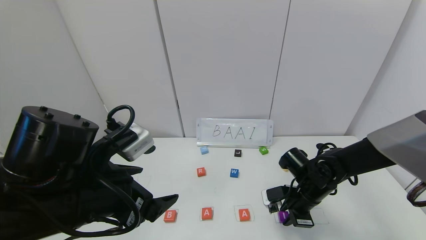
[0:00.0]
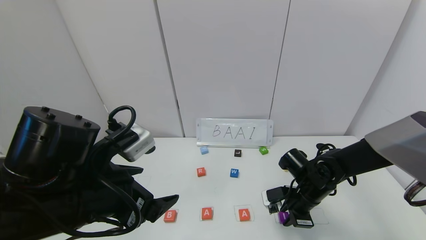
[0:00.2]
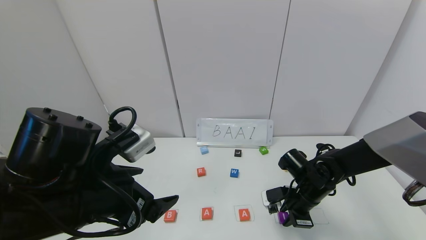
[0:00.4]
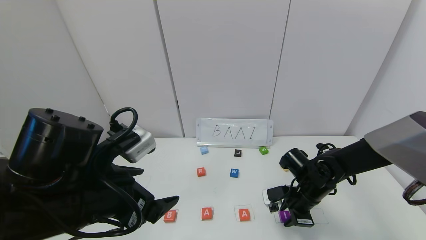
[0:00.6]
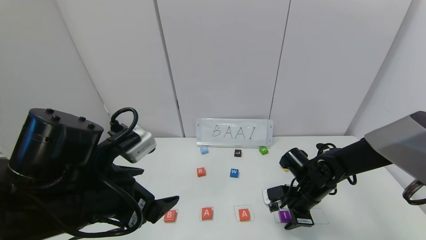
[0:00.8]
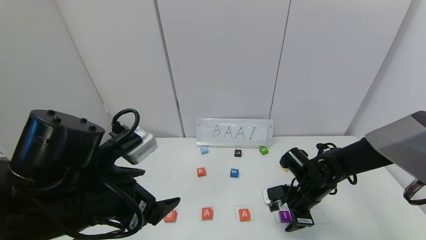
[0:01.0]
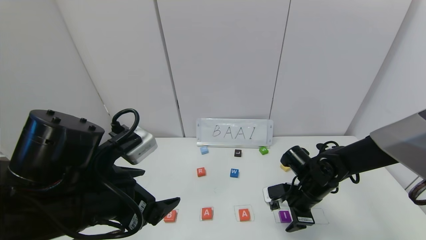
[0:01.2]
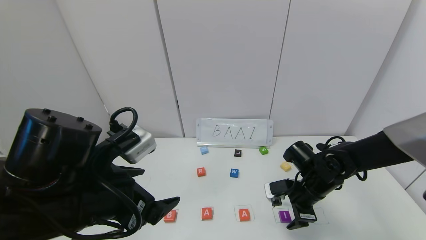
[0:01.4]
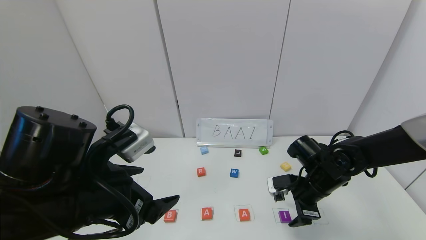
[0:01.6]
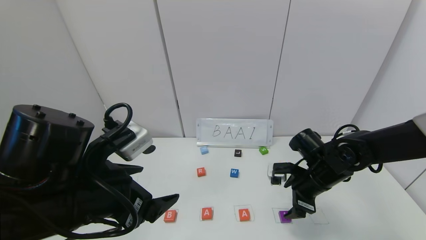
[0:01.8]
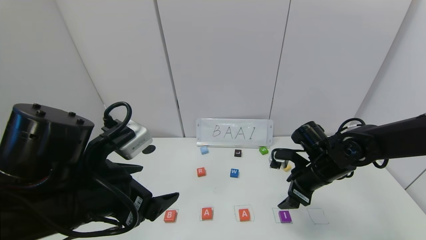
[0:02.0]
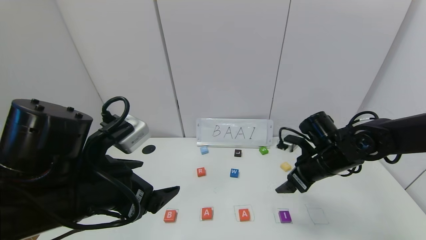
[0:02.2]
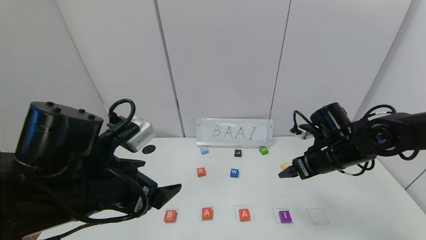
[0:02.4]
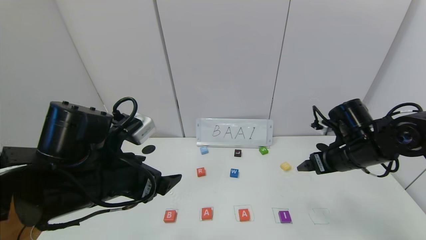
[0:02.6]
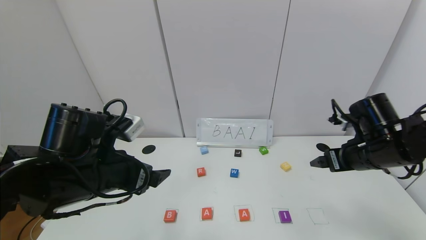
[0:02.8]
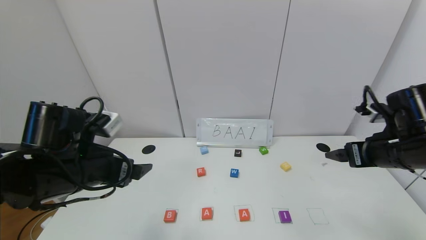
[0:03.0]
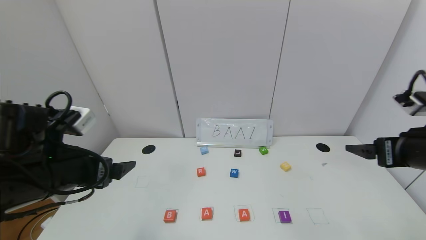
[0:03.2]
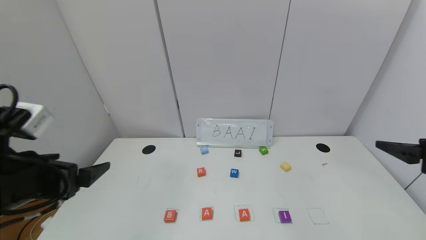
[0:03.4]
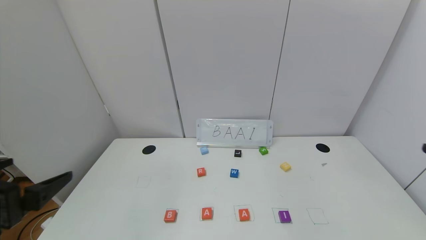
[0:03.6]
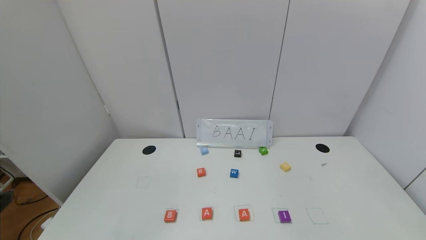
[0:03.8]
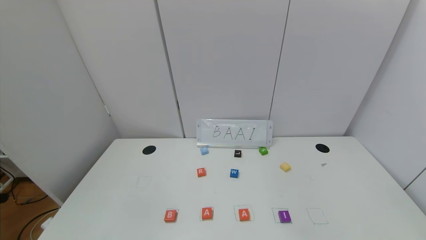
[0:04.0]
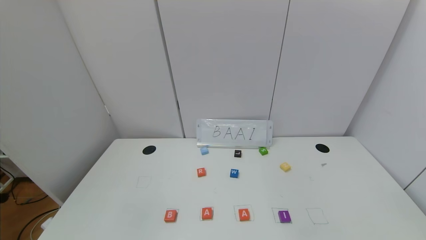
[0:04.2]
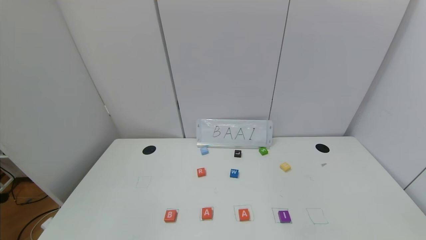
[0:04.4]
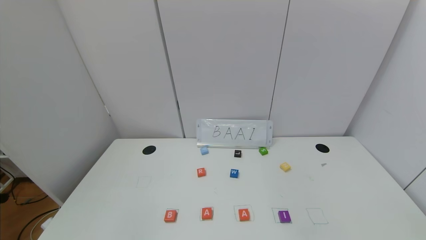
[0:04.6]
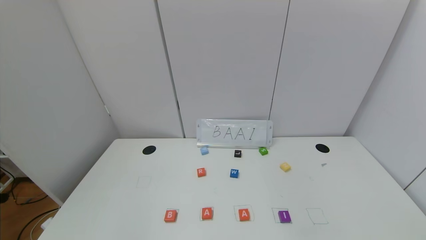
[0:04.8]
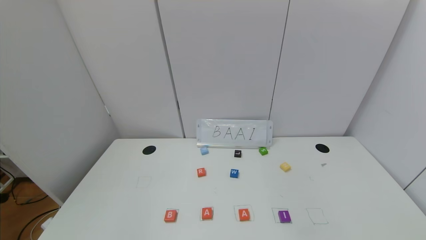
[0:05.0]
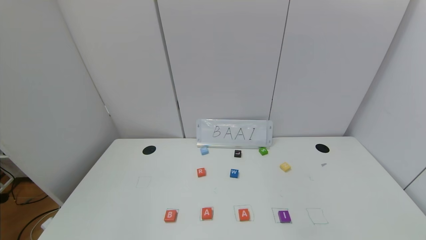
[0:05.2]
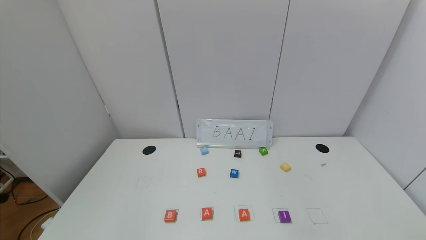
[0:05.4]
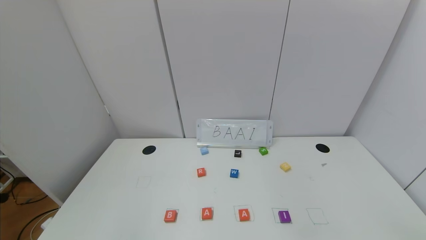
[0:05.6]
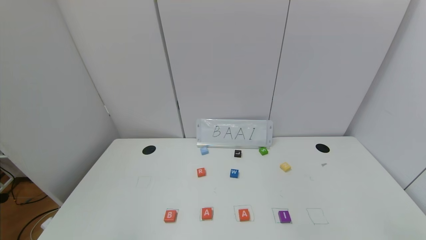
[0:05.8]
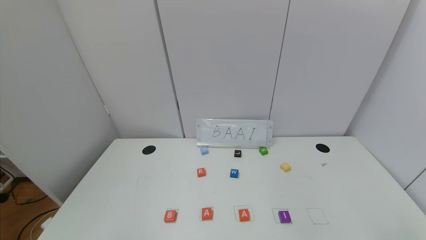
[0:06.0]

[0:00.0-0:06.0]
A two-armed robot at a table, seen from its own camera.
Task of the whole recording: use the gripper to find blocks with the letters b, a, a, and i on the table and arrange them into BAAI, then find r and N and turn the arranged baai into brian.
0:00.0 to 0:01.6: The right gripper opens its fingers.
0:01.6 to 0:03.0: The right gripper is displaced upward, to the right and backward by roughly 15 cm, while the left gripper is displaced forward and to the left by roughly 10 cm.
0:03.0 to 0:04.4: Both grippers move backward, approximately 30 cm.
